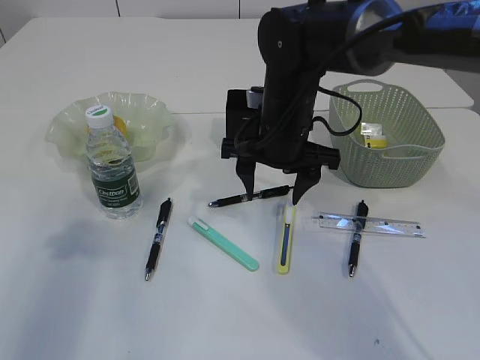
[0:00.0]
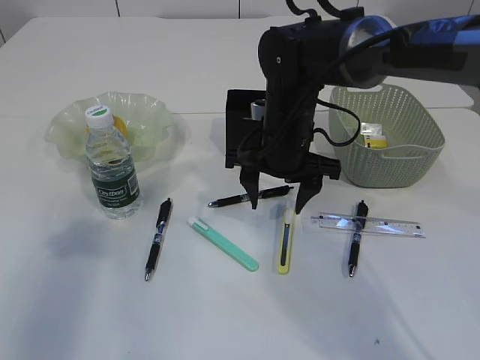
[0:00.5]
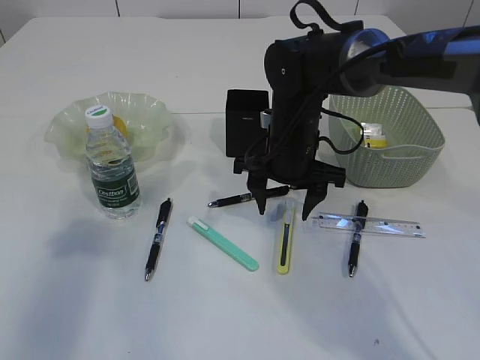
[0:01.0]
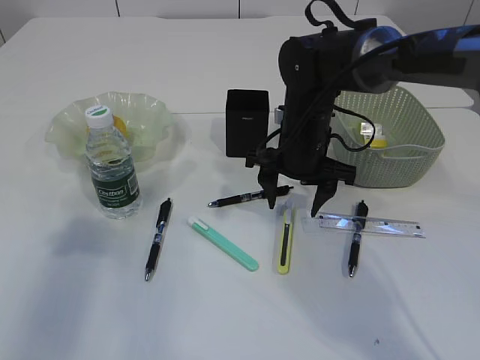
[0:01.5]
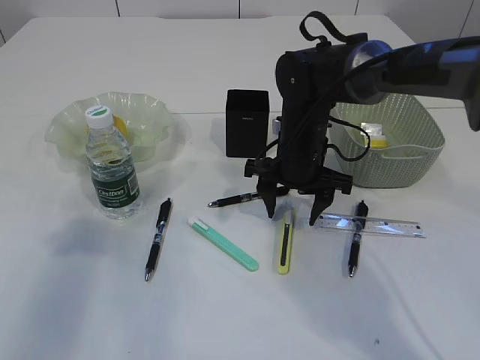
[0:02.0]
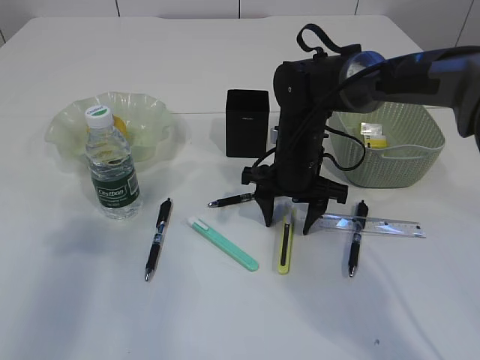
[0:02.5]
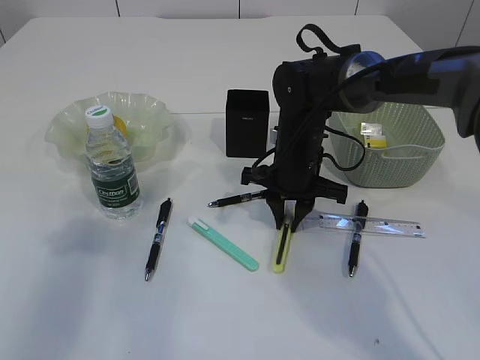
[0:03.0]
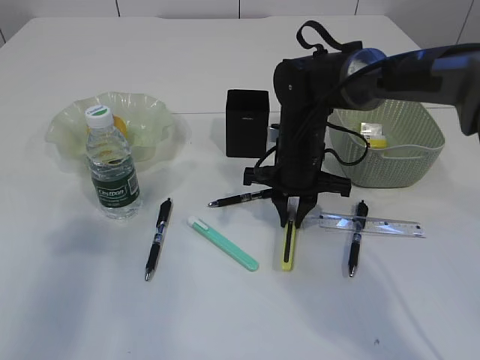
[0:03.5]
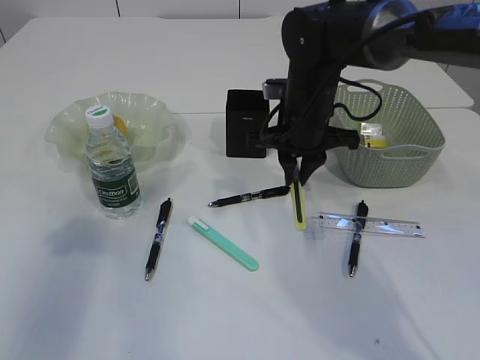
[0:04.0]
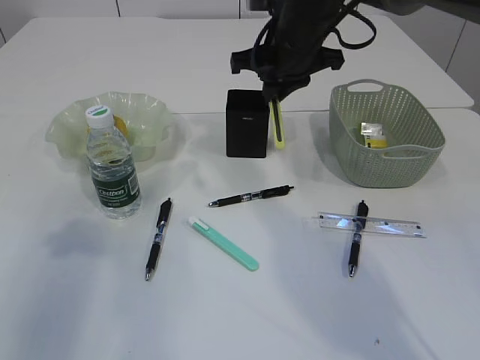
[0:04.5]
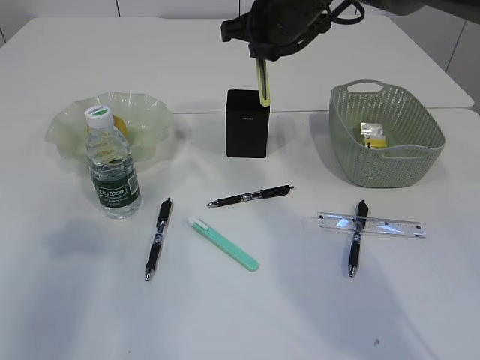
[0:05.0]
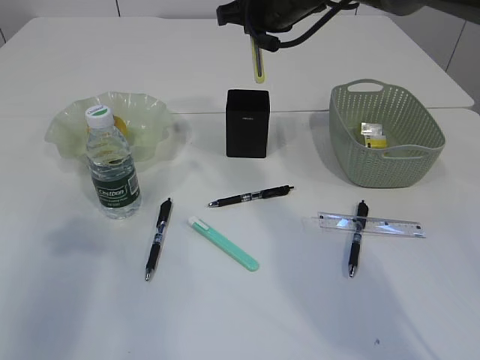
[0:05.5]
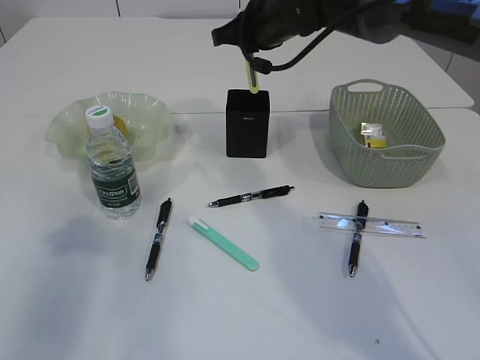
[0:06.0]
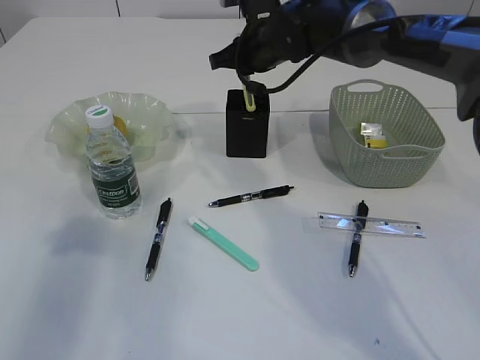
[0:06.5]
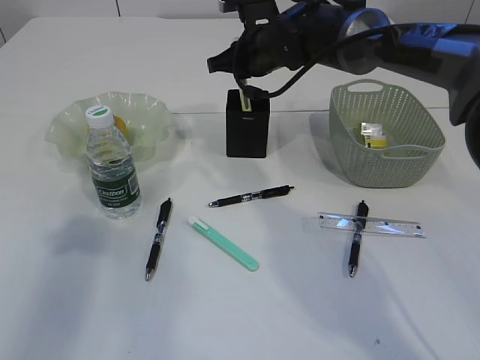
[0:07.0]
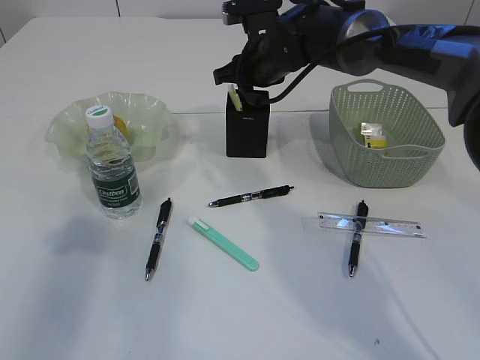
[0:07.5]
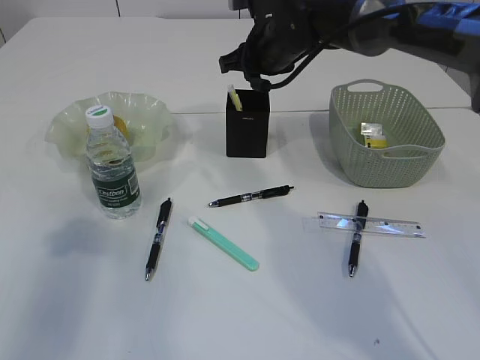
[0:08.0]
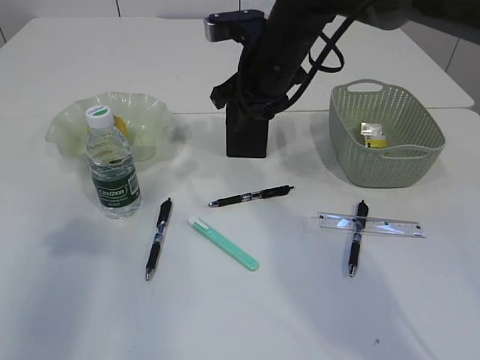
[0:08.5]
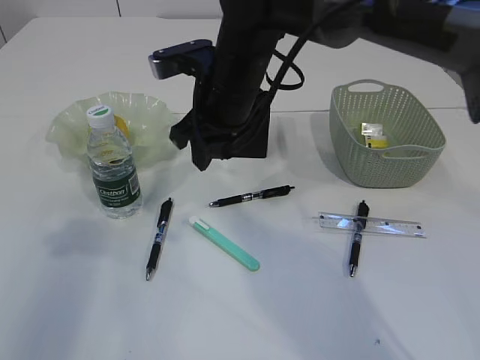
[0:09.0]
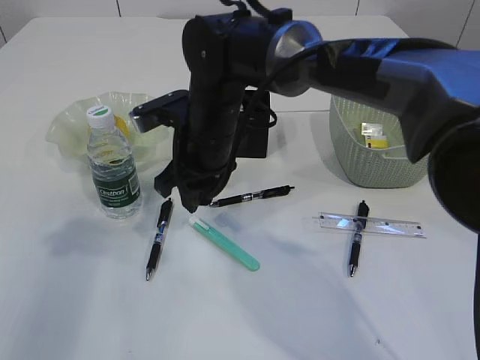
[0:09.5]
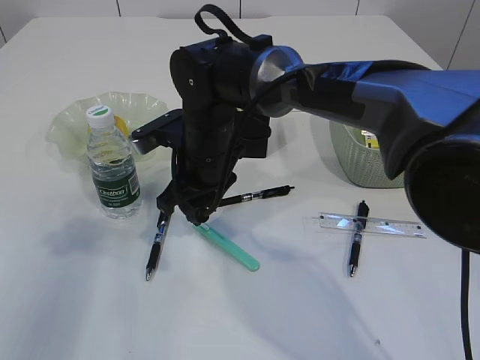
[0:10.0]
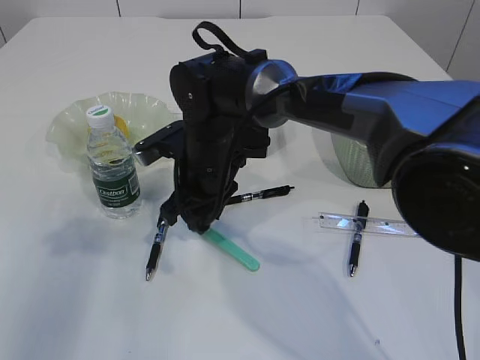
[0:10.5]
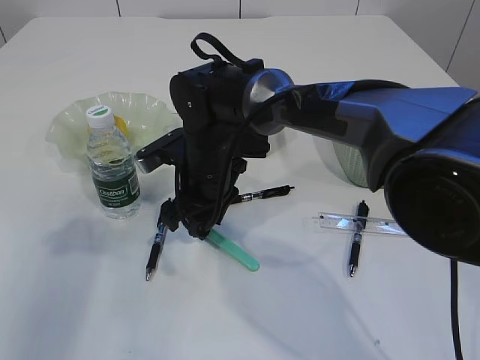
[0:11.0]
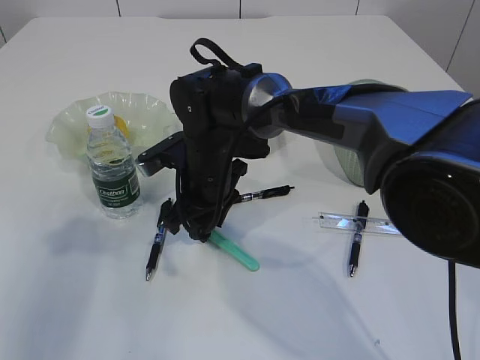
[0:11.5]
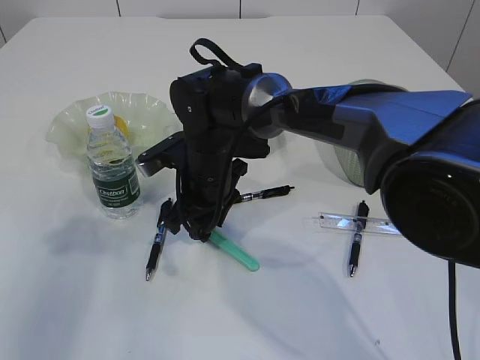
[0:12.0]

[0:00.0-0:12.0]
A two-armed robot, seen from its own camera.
Step, 0:00.0 to 0:03.5: pick up the yellow knife.
Step, 0:04.0 to 0:07.5: place the yellow knife into the pen holder.
0:00.0 to 0:02.0: The right gripper is displaced downward by about 5 cm.
0:02.0 to 0:04.0: The right gripper closes its fingers.
0:04.0 to 0:06.0: The right gripper is displaced upward and forward by roughly 10 cm.
0:06.0 to 0:08.0: There are only small adjustments of the grippers.
0:08.0 to 0:10.0: The right gripper moves backward, to the left and downward, approximately 15 cm.
0:10.0 to 0:12.0: The grippers move only a little.

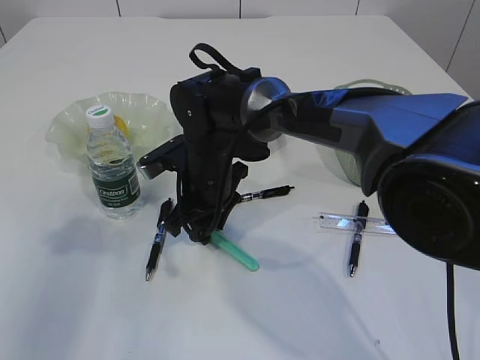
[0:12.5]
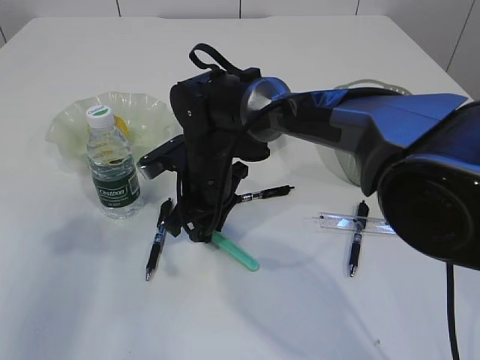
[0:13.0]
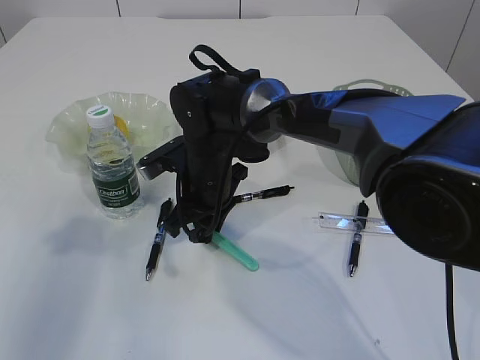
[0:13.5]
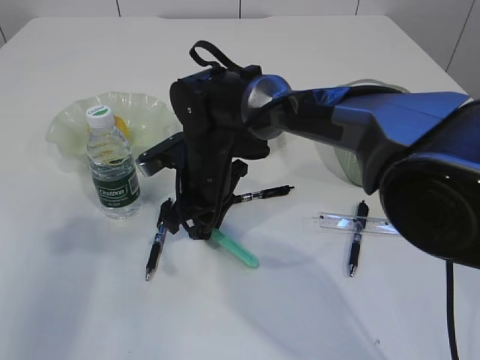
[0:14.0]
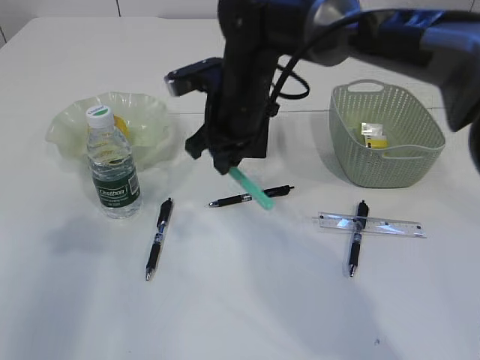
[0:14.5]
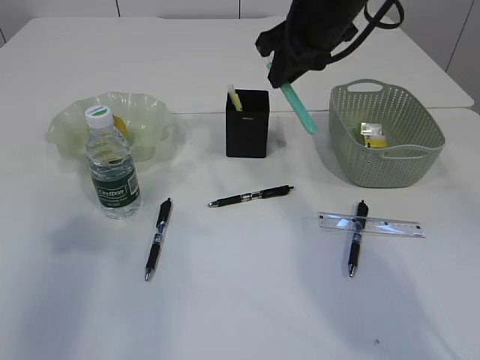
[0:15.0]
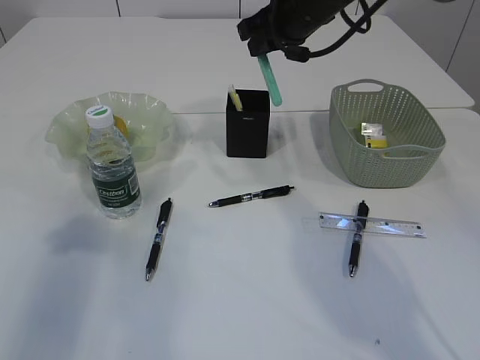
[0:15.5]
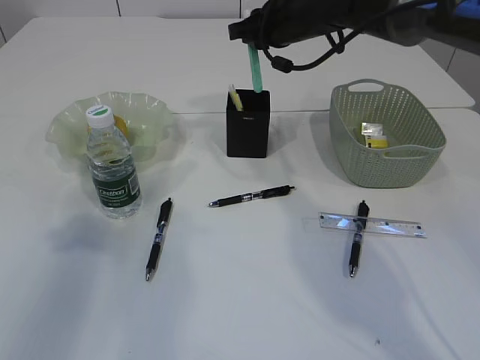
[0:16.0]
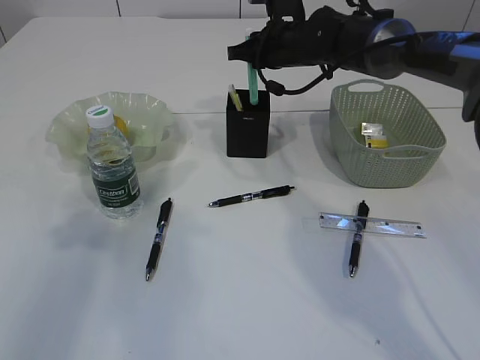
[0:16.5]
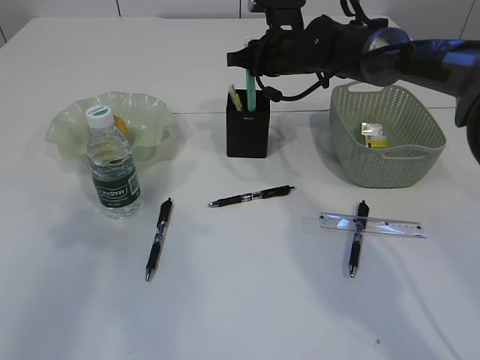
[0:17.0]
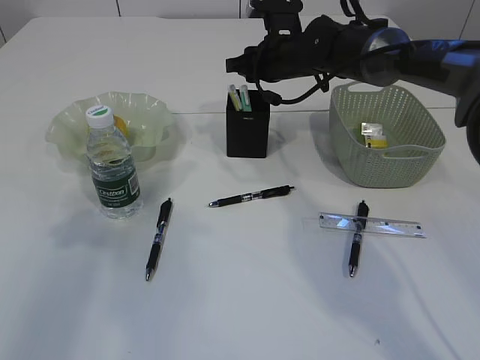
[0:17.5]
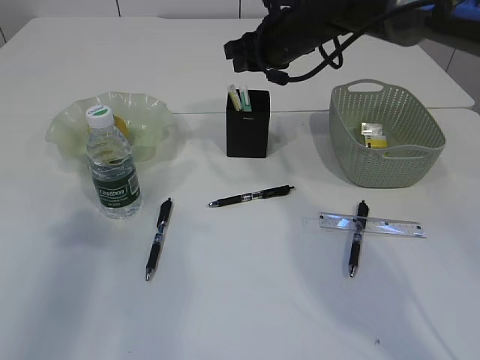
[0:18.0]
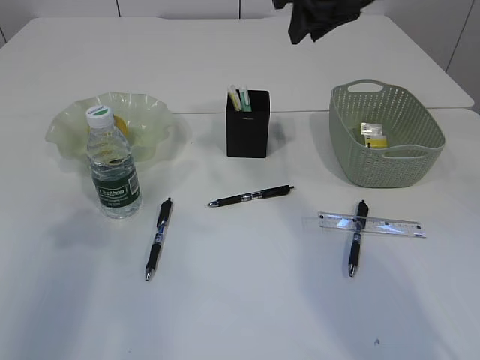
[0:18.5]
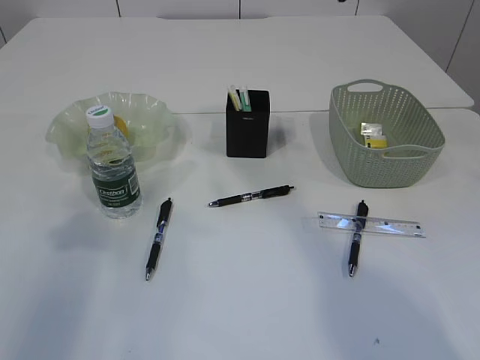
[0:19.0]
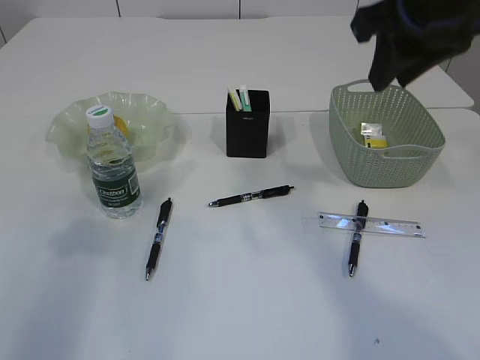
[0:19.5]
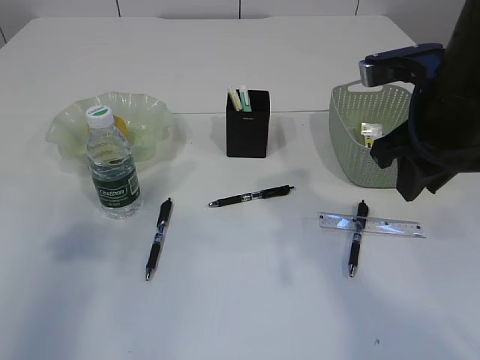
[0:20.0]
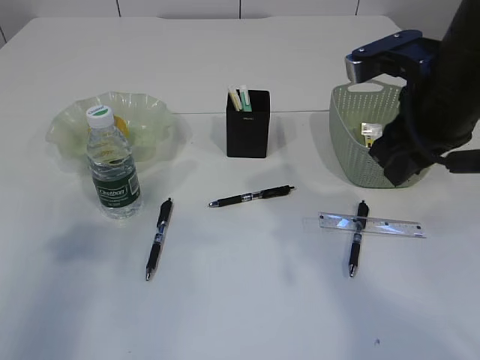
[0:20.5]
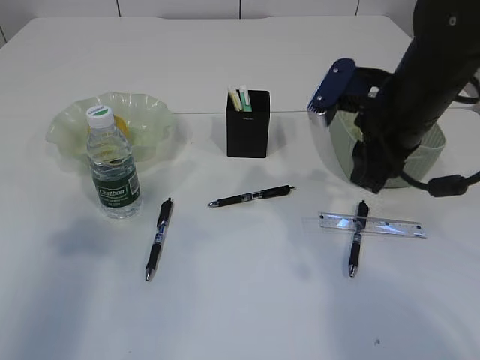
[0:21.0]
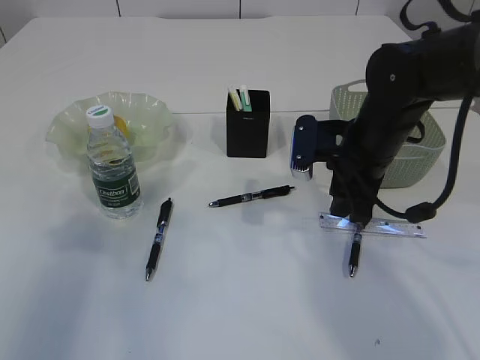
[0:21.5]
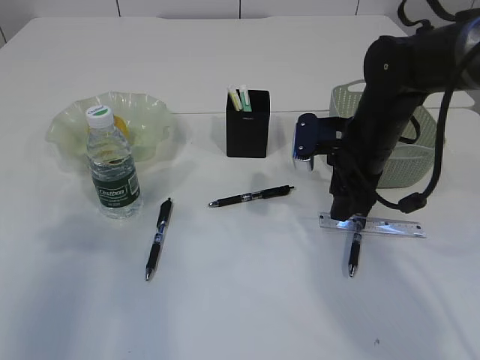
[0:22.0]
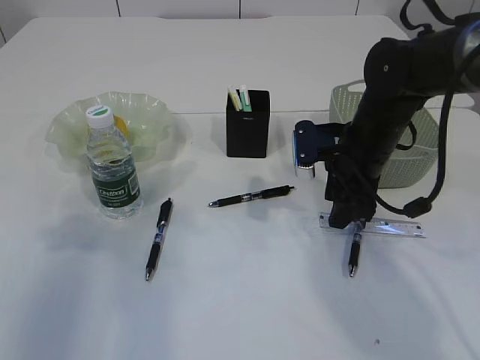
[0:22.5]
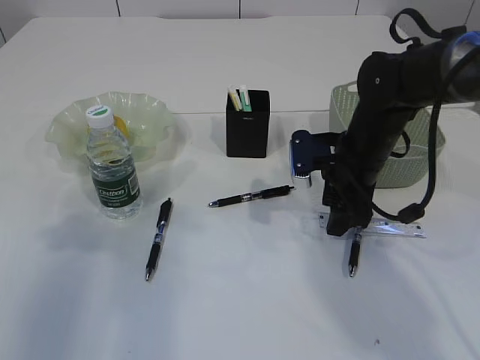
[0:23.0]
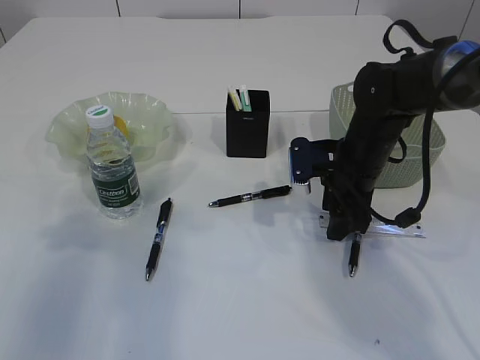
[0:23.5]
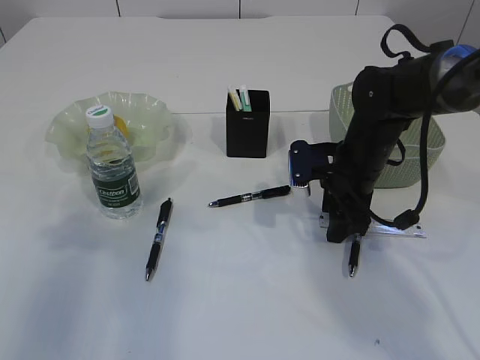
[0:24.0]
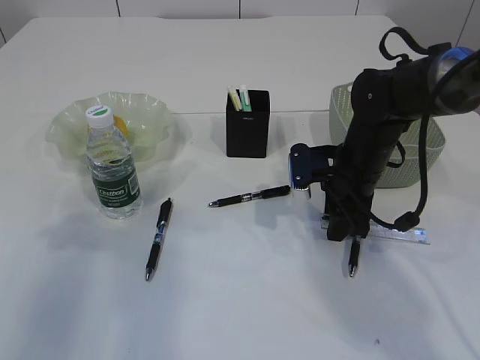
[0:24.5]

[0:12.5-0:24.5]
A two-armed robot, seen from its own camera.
Step, 0:14.5 to 0:18.0: Place the blue knife into the pen holder.
0:12.5 to 0:14.5: The right gripper heads upward, covering roughly 10 cm.
0:14.5 to 0:16.5: The right gripper moves forward and to the right, some 15 cm.
0:16.5 to 0:18.5: The right gripper travels upward and backward by about 15 cm.
0:18.5 to 0:20.5: The right gripper heads backward and downward, covering some 15 cm.
0:20.5 to 0:22.5: The right gripper travels downward and forward by roughly 15 cm.
0:22.5 to 0:24.5: The grippers make only small movements.

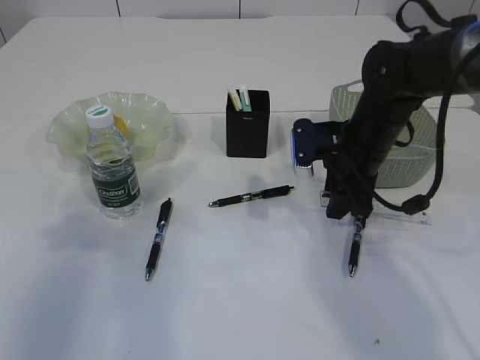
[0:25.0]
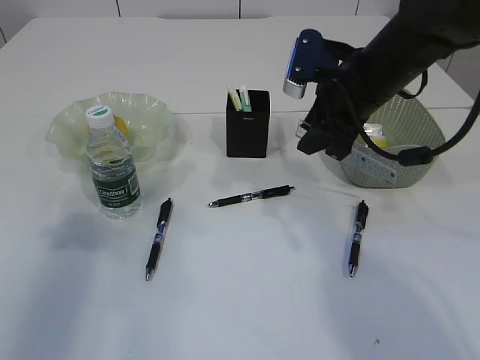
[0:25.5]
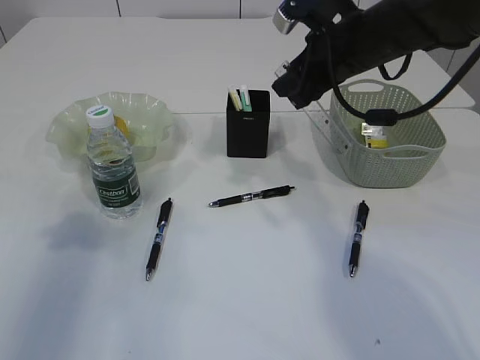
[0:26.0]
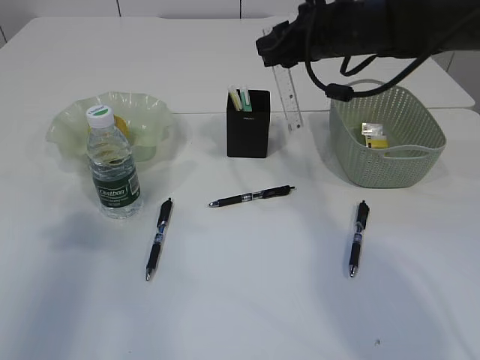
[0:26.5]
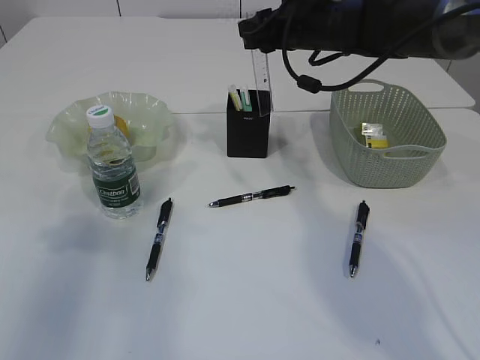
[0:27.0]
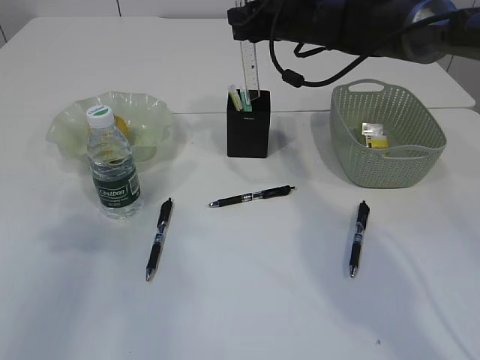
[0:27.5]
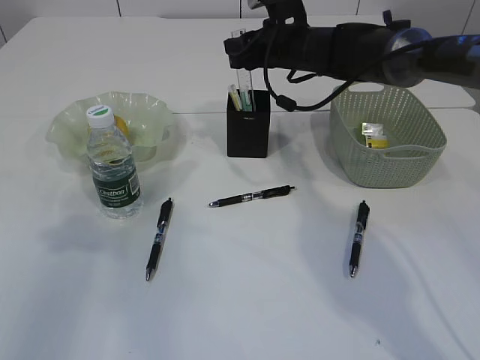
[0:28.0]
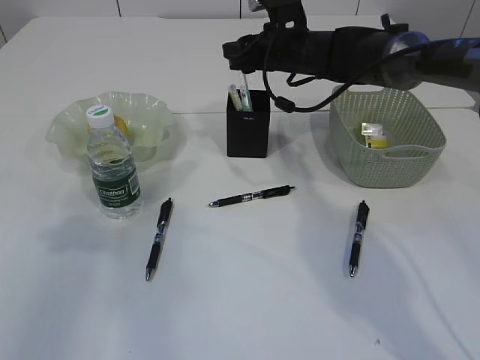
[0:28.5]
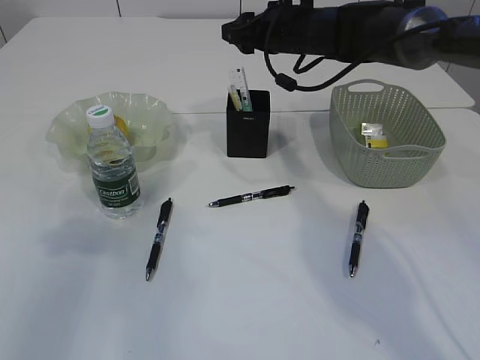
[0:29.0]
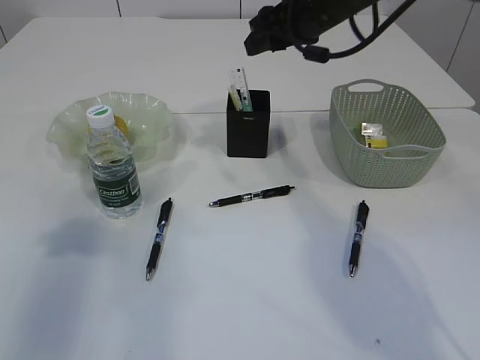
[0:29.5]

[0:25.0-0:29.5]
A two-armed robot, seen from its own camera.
Step, 0:25.5 to 0:29.0: Place the ruler into the pen holder.
0:25.0 to 0:27.0: The right gripper moves upward and forward, about 15 cm.
